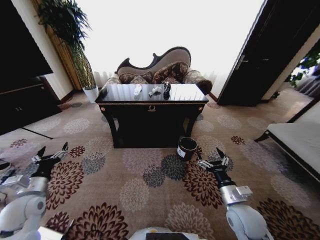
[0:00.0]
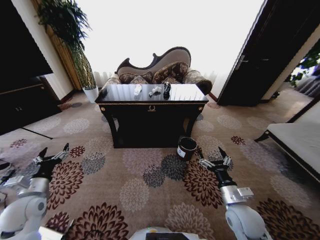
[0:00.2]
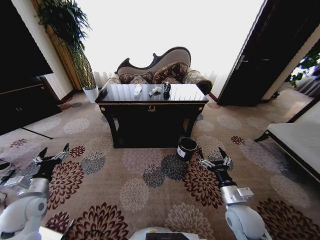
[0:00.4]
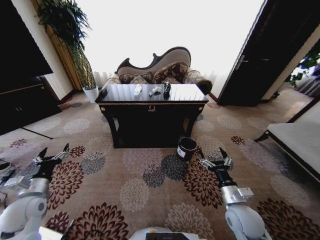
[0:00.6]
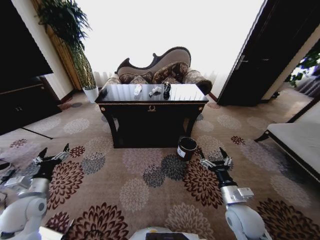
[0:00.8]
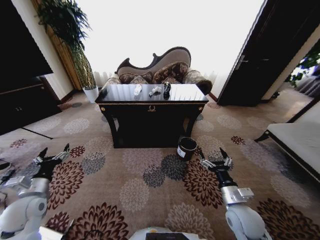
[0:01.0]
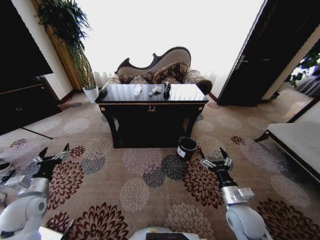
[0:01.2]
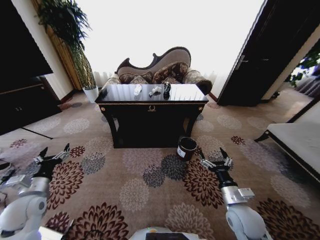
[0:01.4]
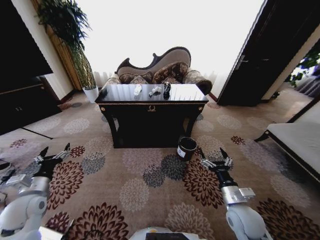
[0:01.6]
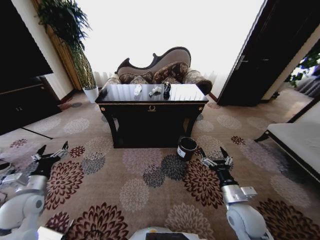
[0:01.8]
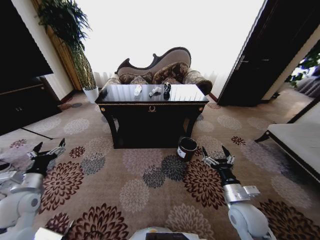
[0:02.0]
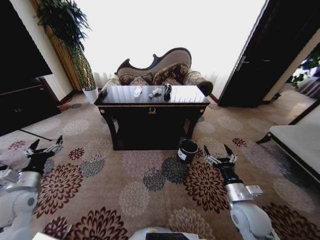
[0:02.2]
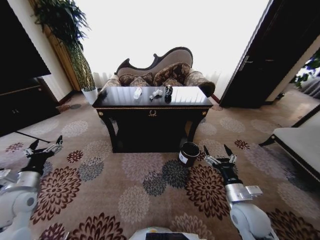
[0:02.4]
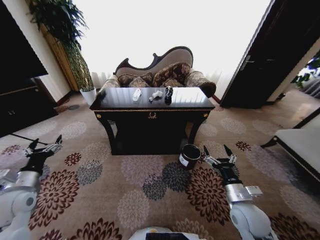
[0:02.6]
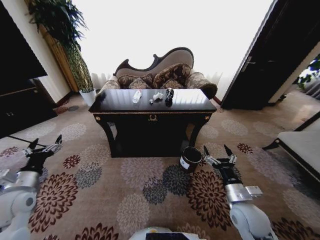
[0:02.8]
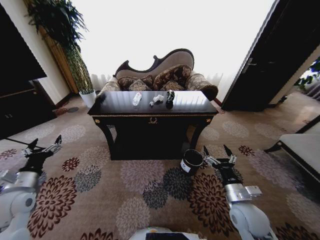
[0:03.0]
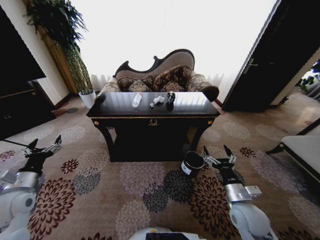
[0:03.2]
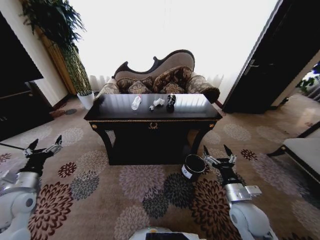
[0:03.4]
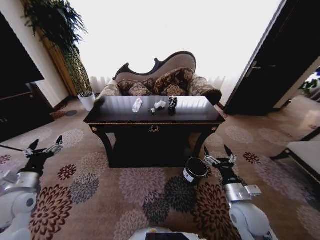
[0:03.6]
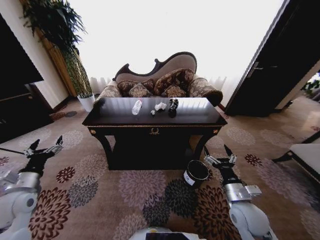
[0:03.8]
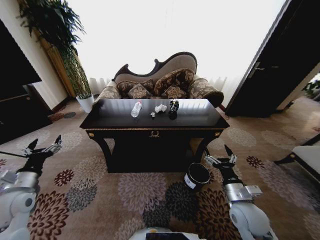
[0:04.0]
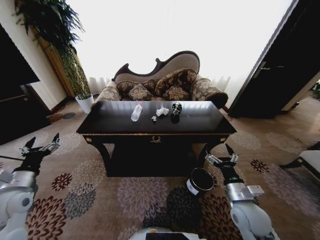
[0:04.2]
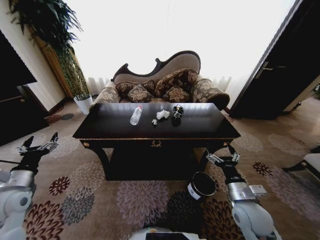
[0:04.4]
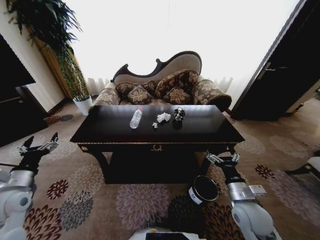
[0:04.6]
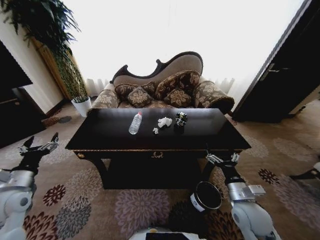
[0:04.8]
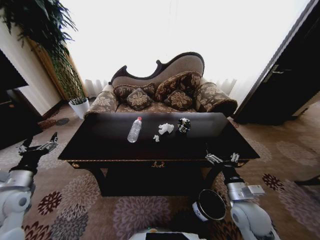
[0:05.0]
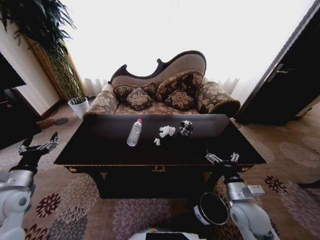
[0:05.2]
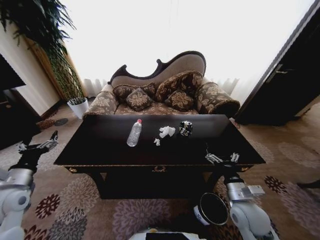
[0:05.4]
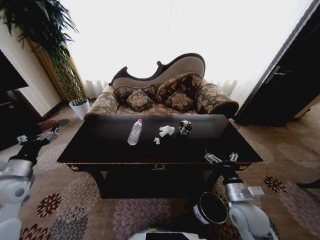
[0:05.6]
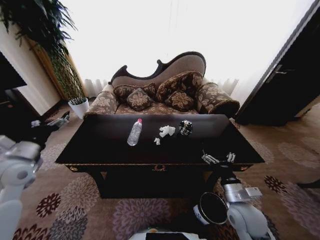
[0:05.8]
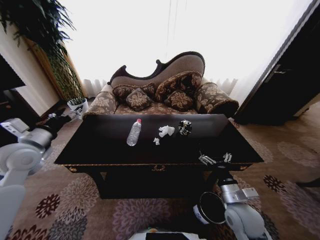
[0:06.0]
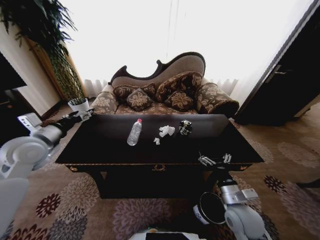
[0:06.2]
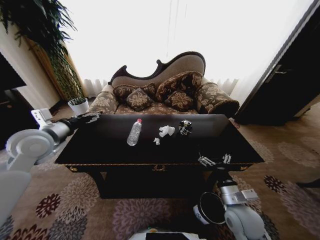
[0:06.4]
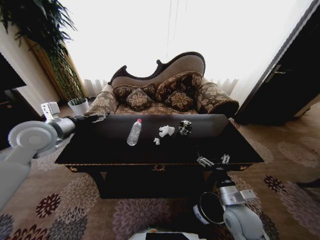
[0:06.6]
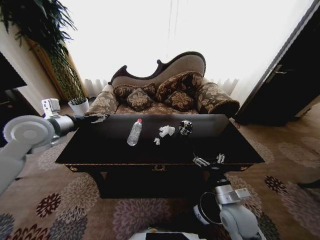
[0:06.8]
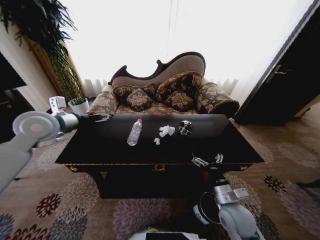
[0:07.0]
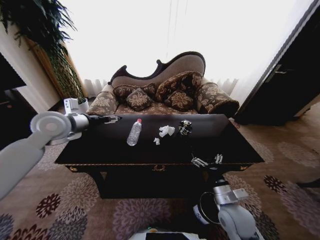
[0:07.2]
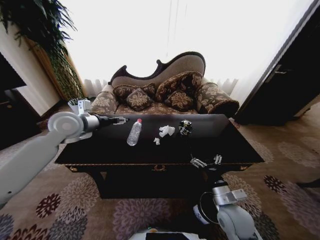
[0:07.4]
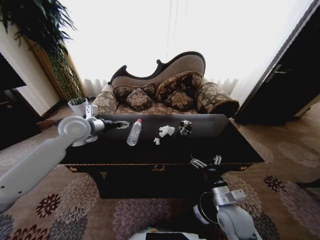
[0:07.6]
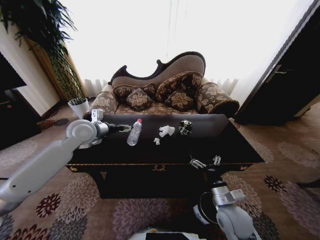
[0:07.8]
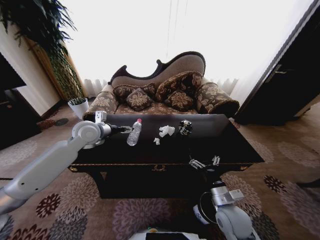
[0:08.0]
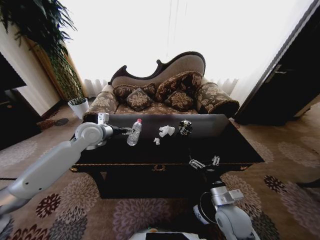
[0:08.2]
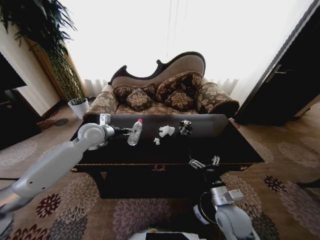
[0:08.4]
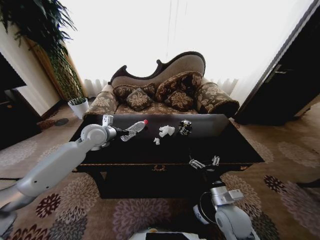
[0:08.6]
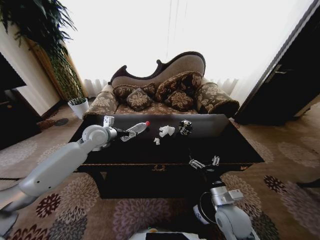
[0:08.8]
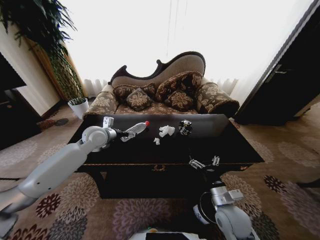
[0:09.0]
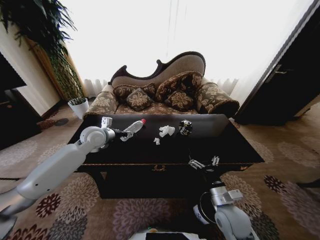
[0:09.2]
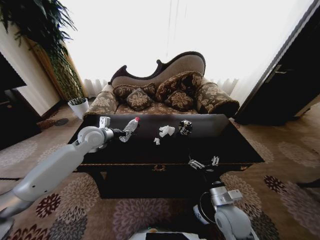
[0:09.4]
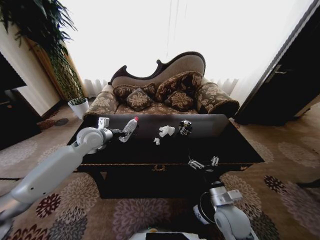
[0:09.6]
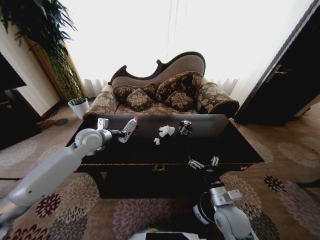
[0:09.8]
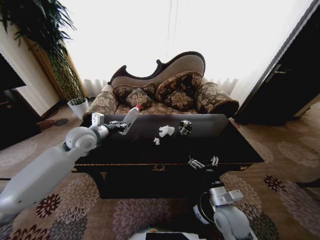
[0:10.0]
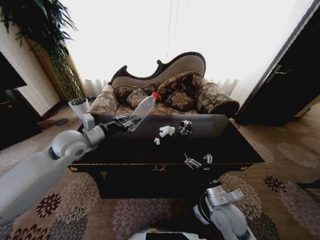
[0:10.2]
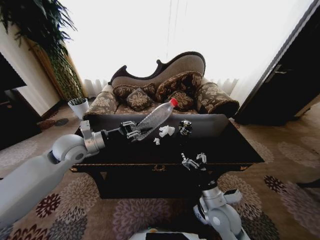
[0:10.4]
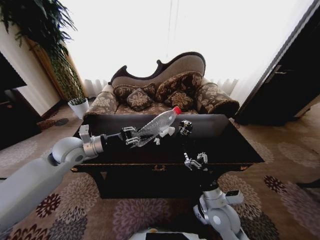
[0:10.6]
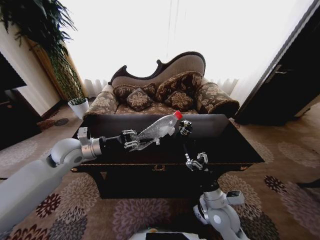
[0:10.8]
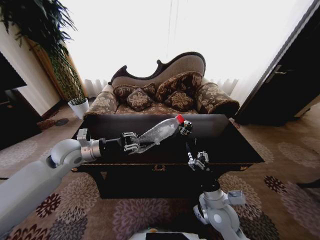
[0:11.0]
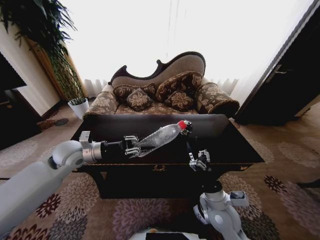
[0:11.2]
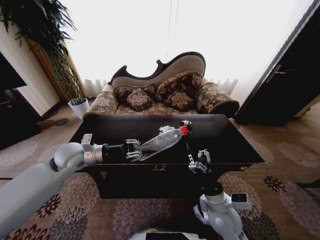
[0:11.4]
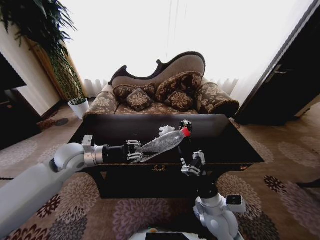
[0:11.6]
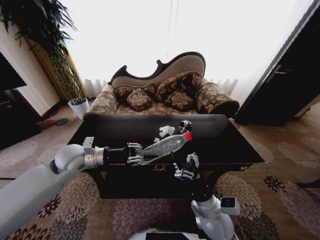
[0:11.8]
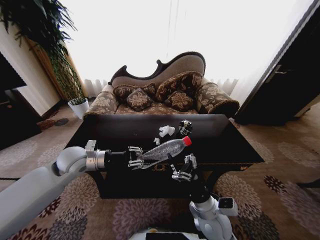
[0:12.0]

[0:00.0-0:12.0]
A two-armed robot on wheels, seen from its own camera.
Task of the whole recording: Move to the front of the table and place the trash on the table into the trash bin.
0:04.4 to 0:06.0: The left gripper shifts approximately 15 cm upward and forward.
0:06.0 to 0:07.6: The left gripper is displaced to the right and forward by about 15 cm.
0:07.6 to 0:09.0: The left gripper heads downward, covering approximately 5 cm.
0:09.0 to 0:10.4: The left gripper goes roughly 10 cm backward, and closes up.
0:10.4 to 0:12.0: The right gripper ends up roughly 5 cm from where it was.

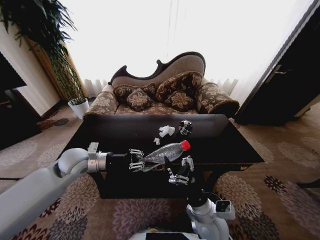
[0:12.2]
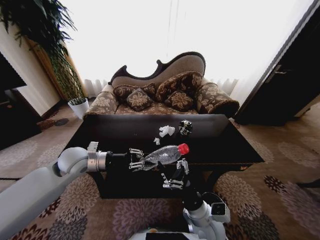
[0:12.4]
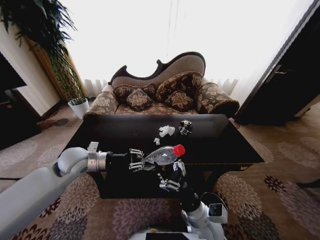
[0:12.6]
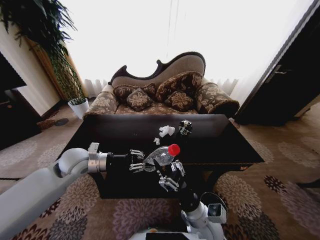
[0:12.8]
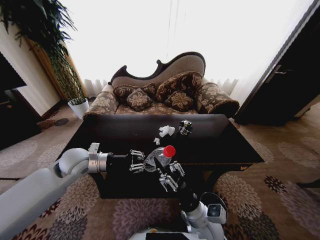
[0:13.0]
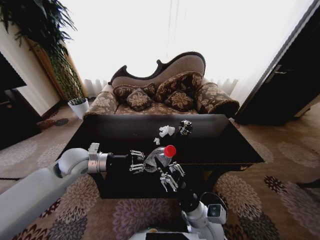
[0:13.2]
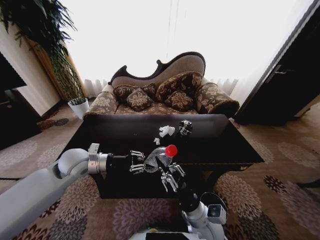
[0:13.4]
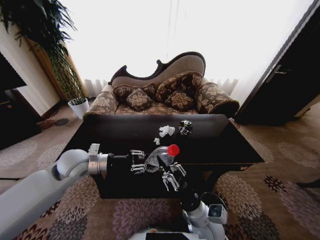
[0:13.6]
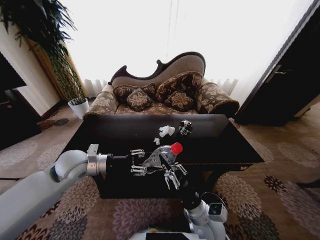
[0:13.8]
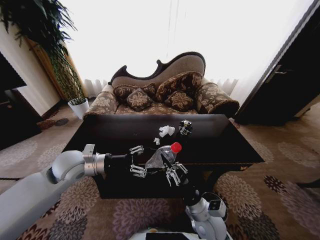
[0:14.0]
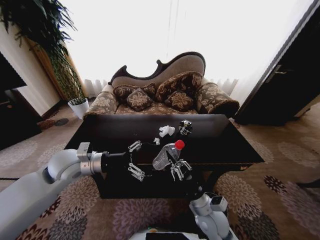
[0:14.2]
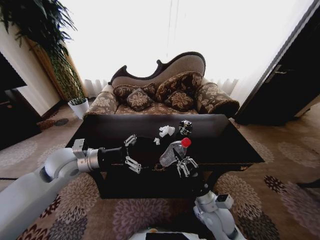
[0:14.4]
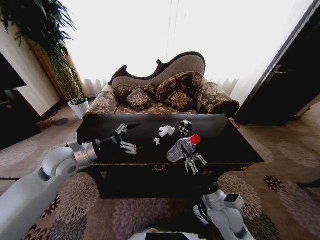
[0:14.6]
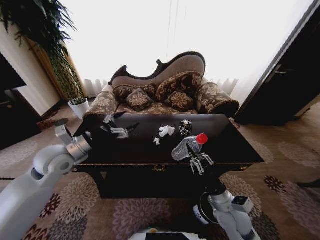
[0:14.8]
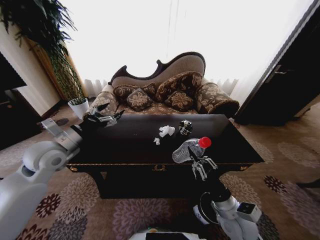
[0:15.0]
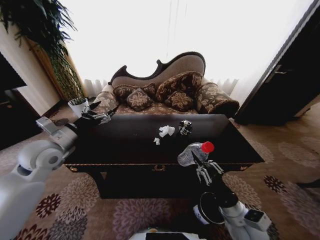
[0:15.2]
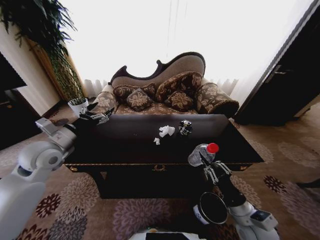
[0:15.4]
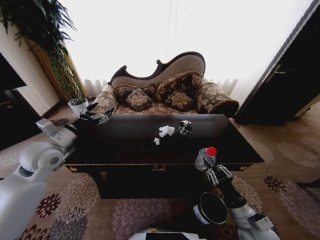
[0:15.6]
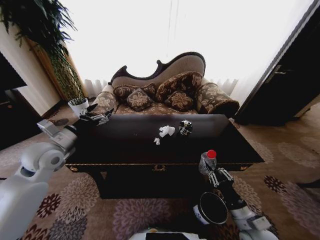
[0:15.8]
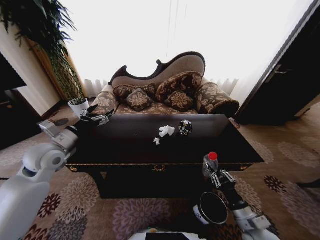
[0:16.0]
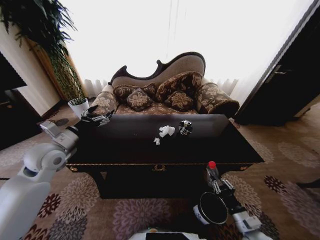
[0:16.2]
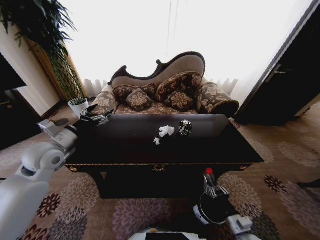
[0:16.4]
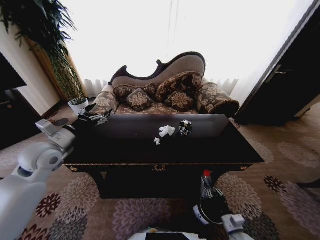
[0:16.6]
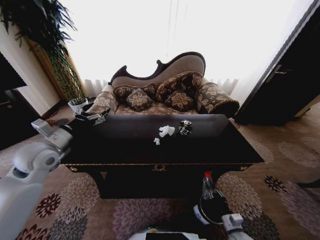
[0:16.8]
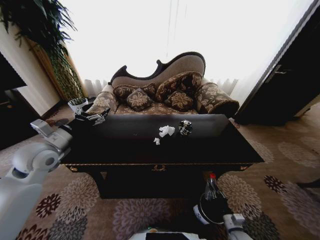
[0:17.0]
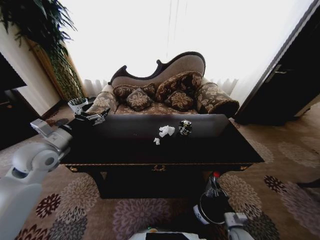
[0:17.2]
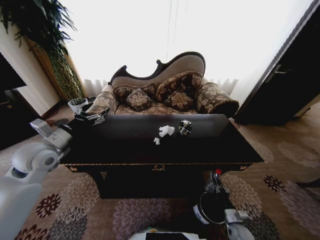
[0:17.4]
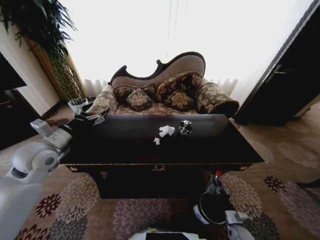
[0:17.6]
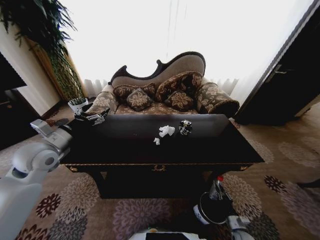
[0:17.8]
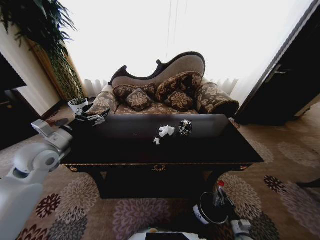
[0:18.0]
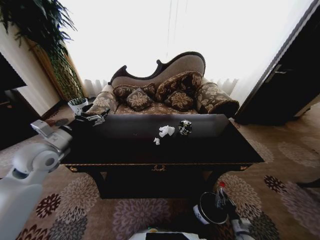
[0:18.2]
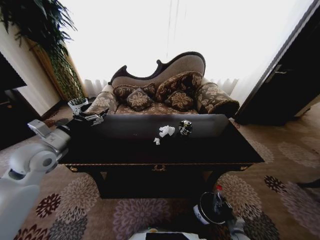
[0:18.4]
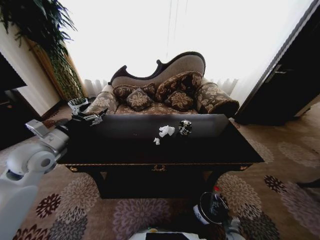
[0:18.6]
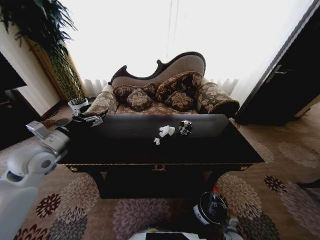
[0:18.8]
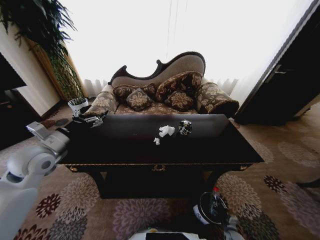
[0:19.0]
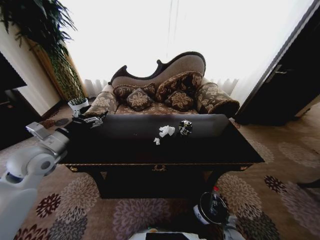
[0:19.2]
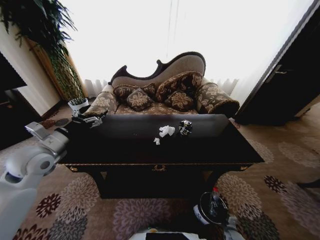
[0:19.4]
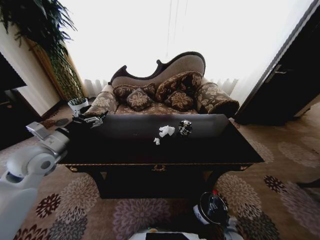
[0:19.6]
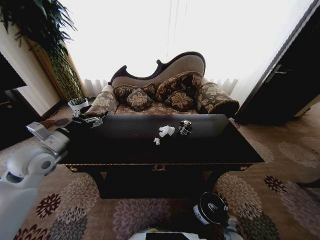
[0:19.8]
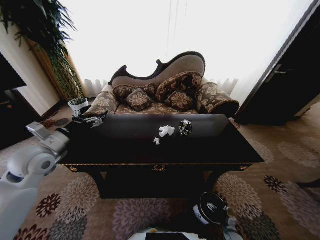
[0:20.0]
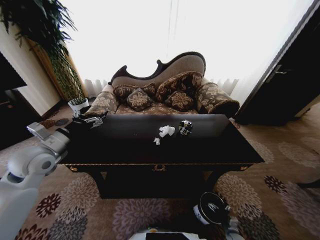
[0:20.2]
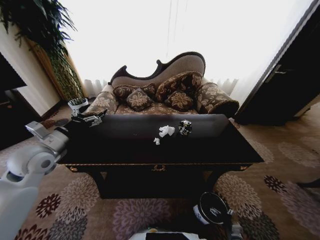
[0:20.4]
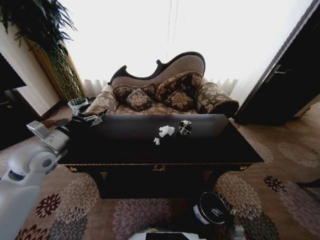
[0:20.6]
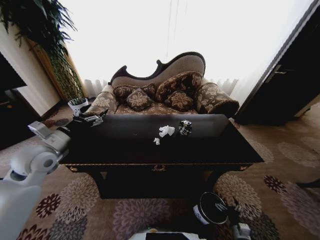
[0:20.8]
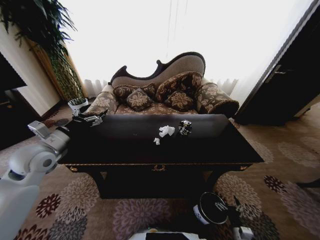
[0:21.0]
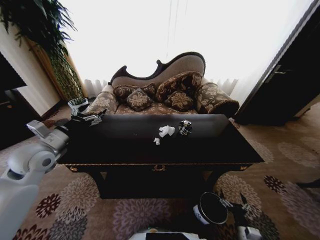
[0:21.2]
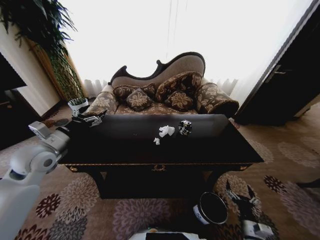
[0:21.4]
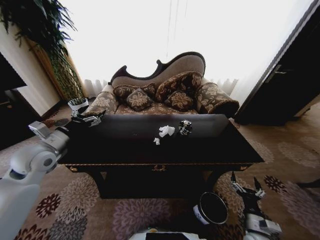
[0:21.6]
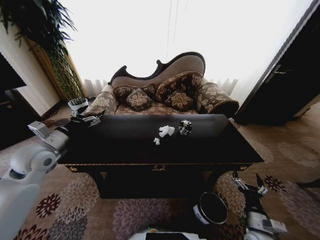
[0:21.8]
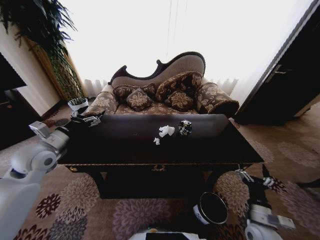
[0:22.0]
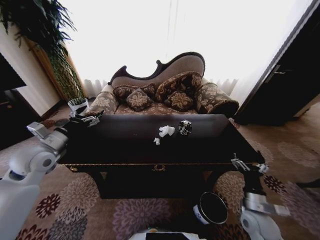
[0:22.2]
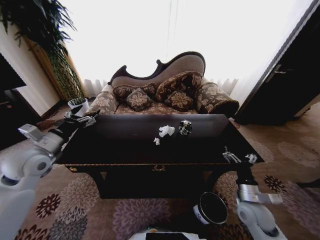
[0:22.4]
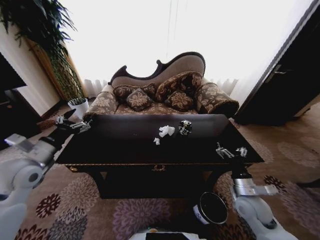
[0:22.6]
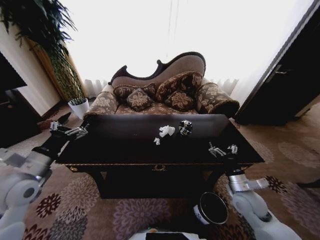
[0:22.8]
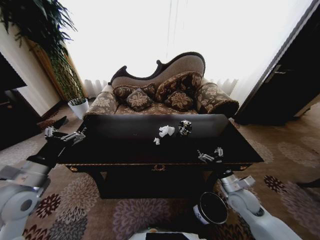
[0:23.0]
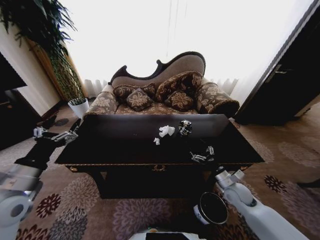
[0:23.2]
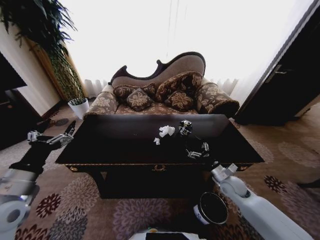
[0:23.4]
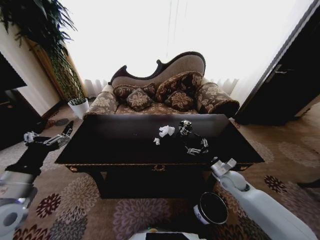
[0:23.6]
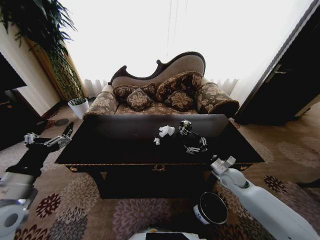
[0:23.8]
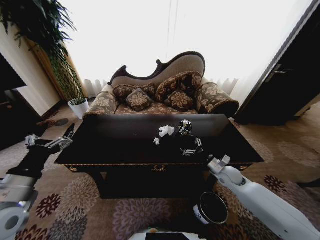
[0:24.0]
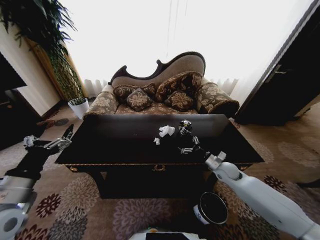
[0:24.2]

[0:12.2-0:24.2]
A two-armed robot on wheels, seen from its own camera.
Task of the whole recording: Move to the front of the table and place the trash on the table into the trash bin.
0:12.2 to 0:13.8: The right gripper closes its fingers.
0:13.8 to 0:15.2: The left gripper is displaced to the left by some 10 cm, and opens its fingers, while the right gripper is displaced to the right by about 10 cm.
0:15.2 to 0:16.6: The right gripper goes about 20 cm downward and to the right.
0:16.6 to 0:18.2: The right gripper moves downward and to the right, roughly 20 cm.
0:18.2 to 0:19.8: The right gripper changes place by about 5 cm, and opens its fingers.
0:19.8 to 0:21.2: The right gripper travels upward by some 15 cm.
0:21.2 to 0:22.6: The left gripper ends up approximately 5 cm from where it was. The right gripper travels upward and forward by about 25 cm.
0:22.6 to 0:24.2: The left gripper is displaced backward by roughly 10 cm, while the right gripper is displaced forward by roughly 15 cm.
